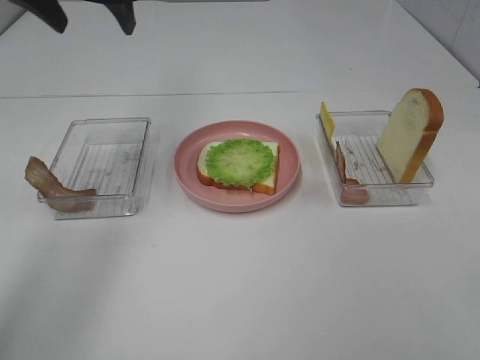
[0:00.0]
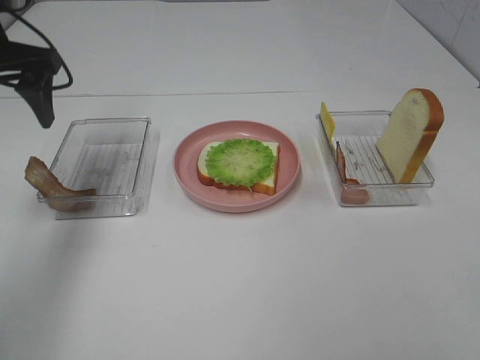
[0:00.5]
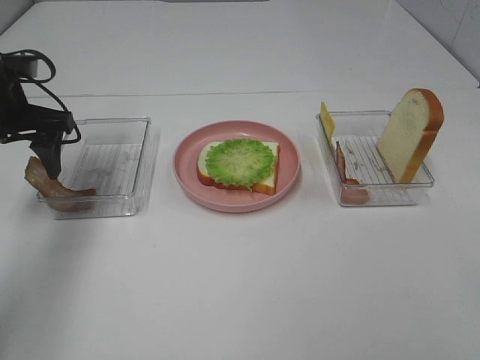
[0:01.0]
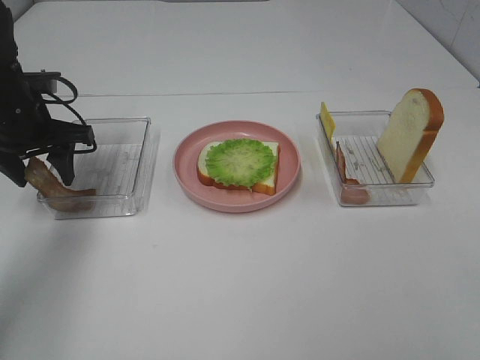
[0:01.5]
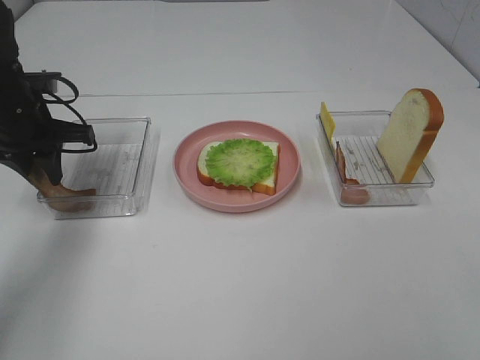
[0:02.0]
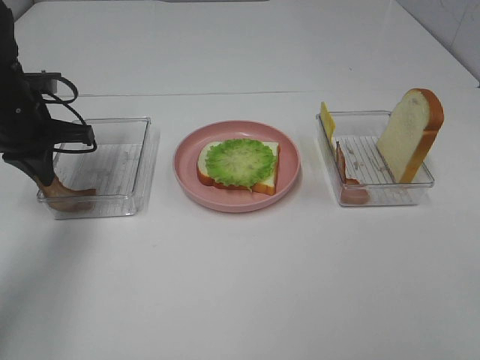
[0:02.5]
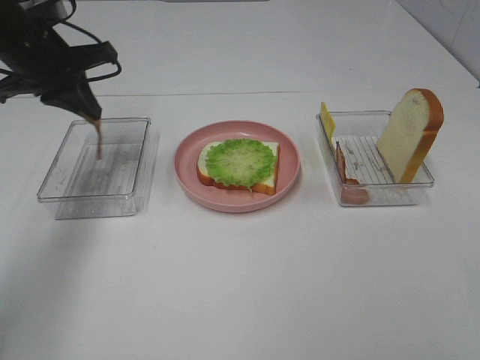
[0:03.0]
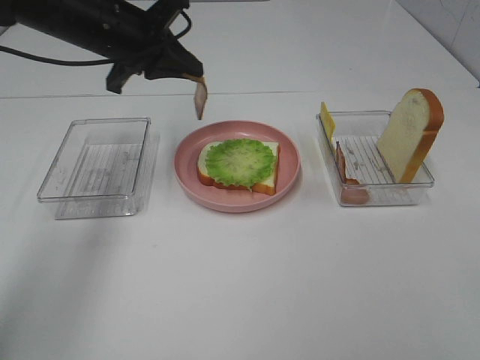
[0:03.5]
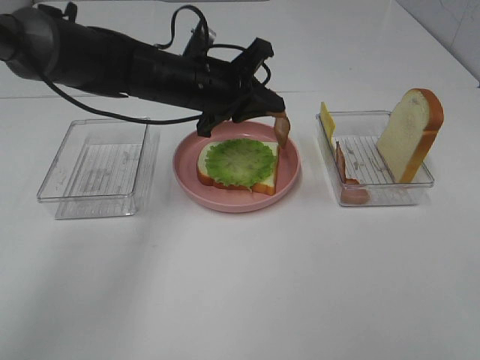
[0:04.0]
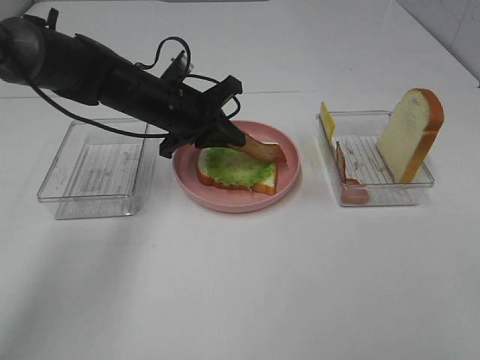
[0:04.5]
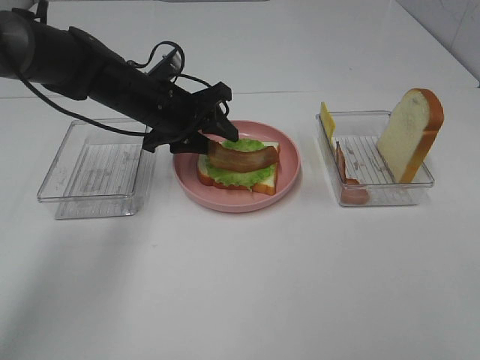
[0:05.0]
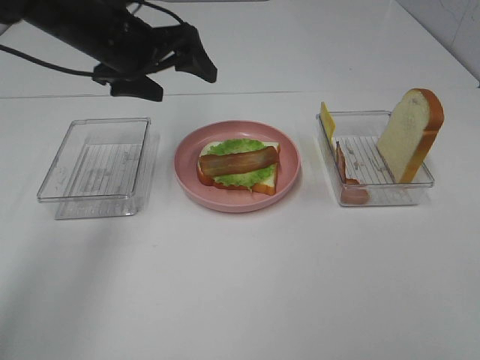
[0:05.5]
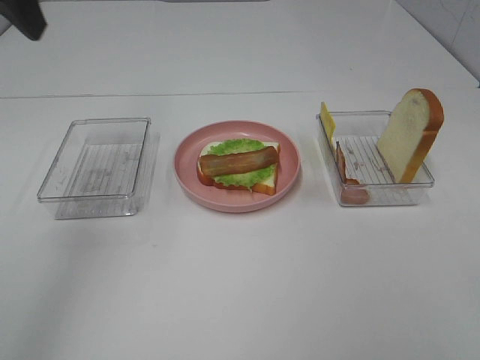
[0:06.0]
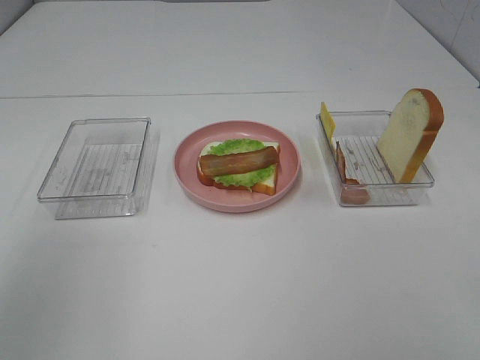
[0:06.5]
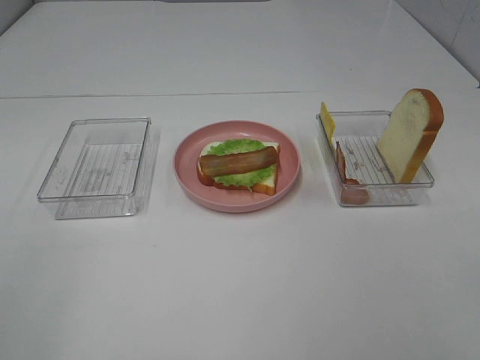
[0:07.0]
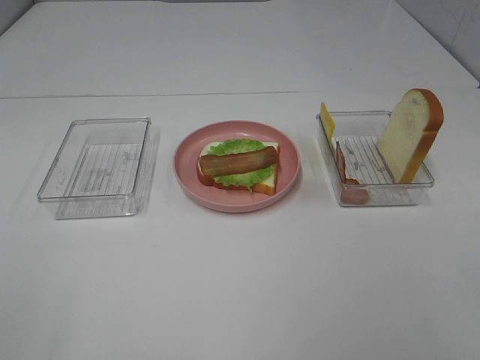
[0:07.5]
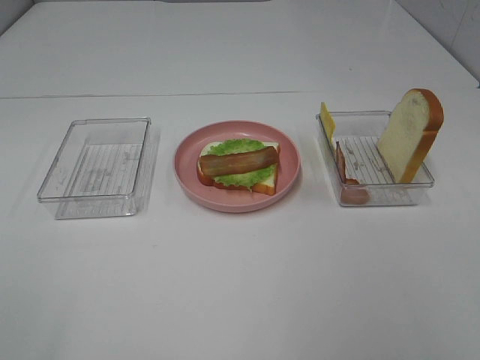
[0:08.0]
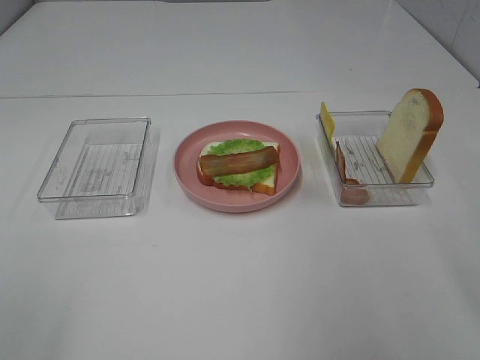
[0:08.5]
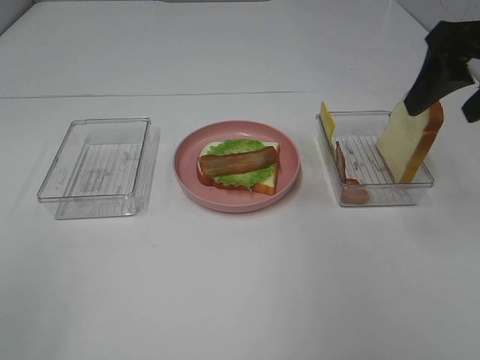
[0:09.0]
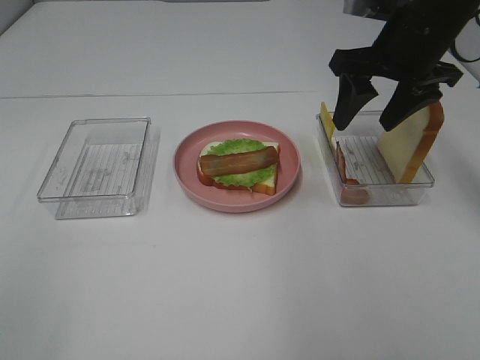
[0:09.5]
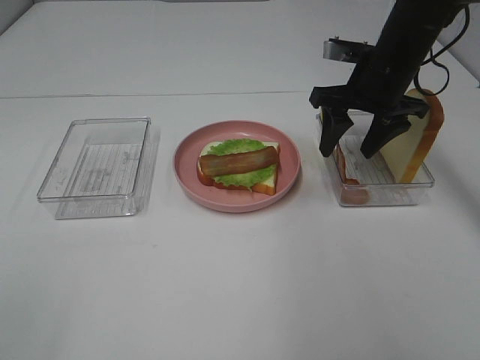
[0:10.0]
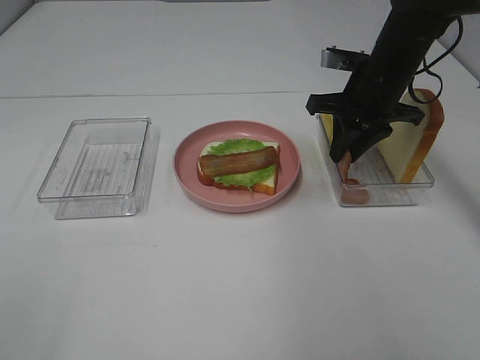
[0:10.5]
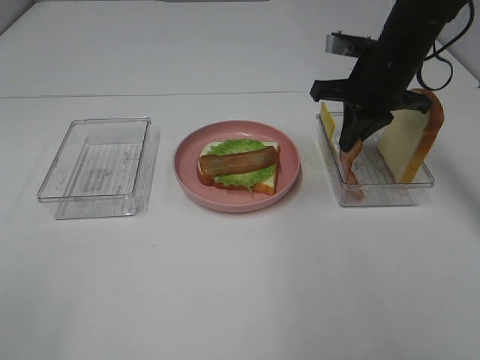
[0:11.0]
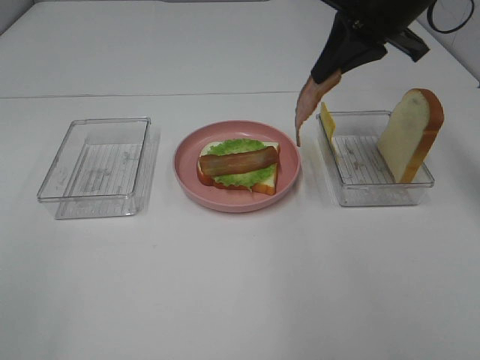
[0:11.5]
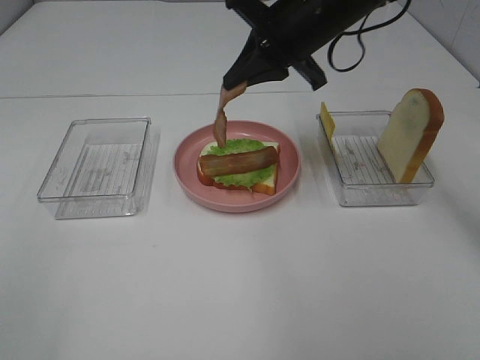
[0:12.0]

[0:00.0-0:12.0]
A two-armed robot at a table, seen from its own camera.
Task of the whole recording: Make sandwiches.
Step, 0:00.0 to 0:02.0: Left hand:grab the bacon.
Step, 0:02.5 to 0:05.0: Left hand:place bacon on lettuce slice.
Step, 0:05.5 to 0:10.5: Right hand:grab the bacon.
0:00.0 to 0:02.0: The left gripper moves downward and to the left, some 20 cm, and closes up.
0:02.0 to 0:04.0: The left gripper is displaced to the right by roughly 20 cm.
0:04.0 to 0:06.0: The left gripper goes about 30 cm upward, to the left and backward, and opens its fingers.
0:06.0 to 0:08.0: The left gripper travels backward by approximately 30 cm.
0:08.0 to 0:10.0: The right gripper moves forward, roughly 40 cm.
0:10.0 to 0:12.0: The right gripper is displaced to the left and upward by roughly 10 cm, and closes.

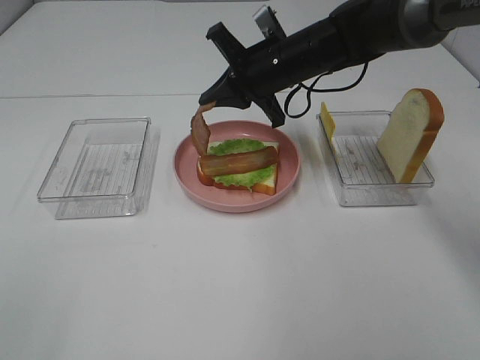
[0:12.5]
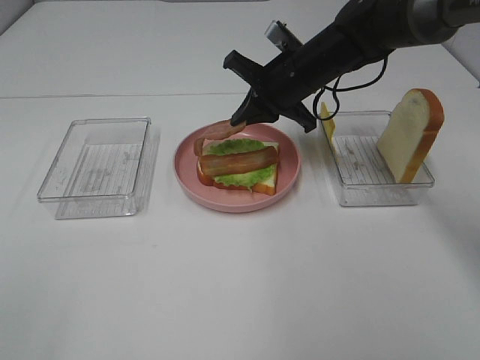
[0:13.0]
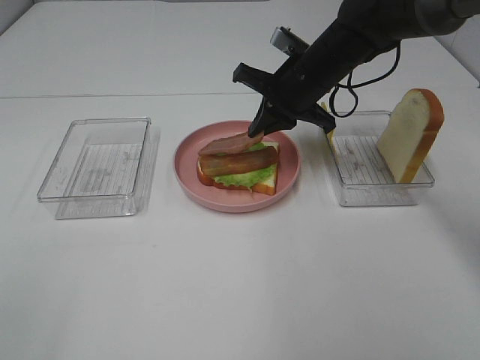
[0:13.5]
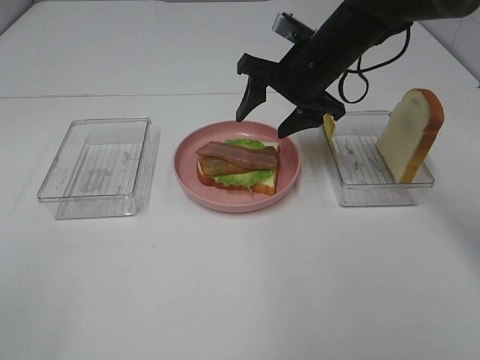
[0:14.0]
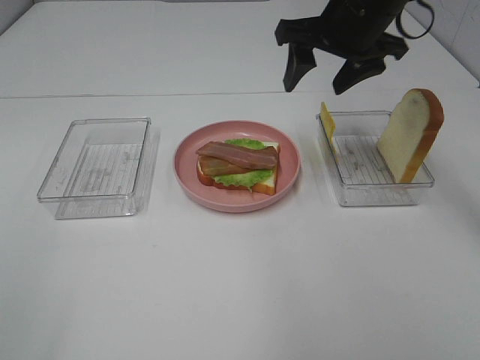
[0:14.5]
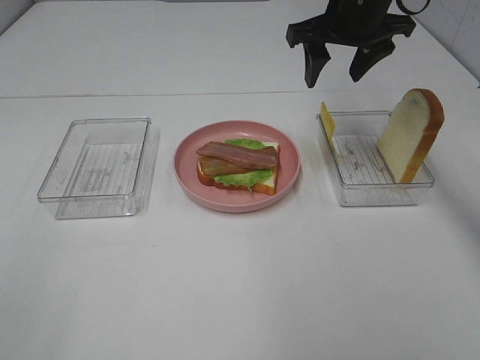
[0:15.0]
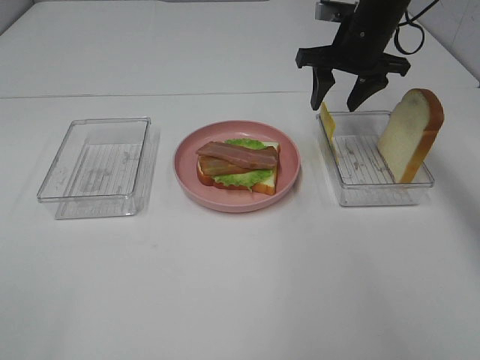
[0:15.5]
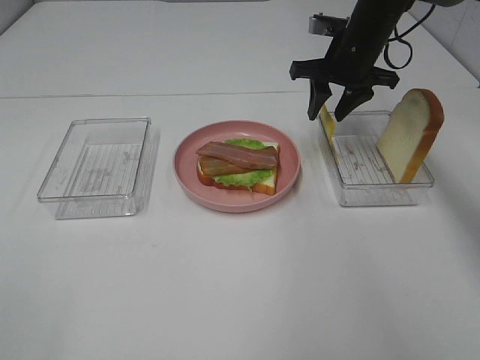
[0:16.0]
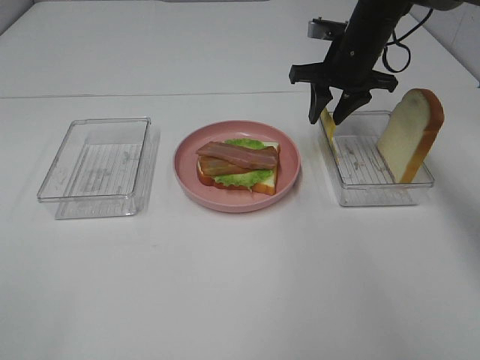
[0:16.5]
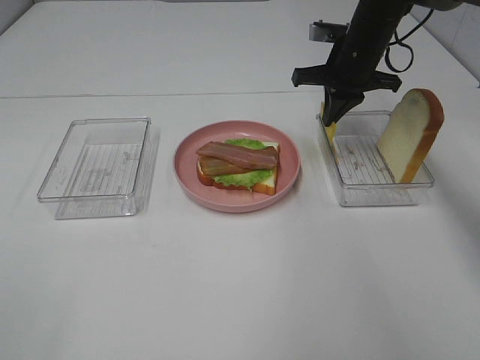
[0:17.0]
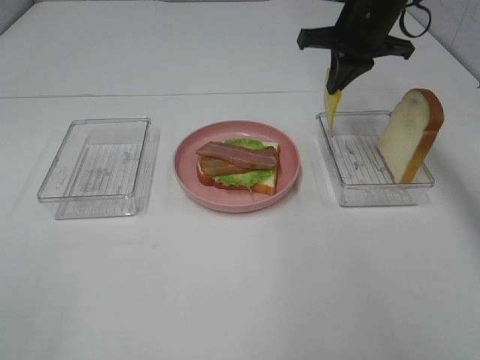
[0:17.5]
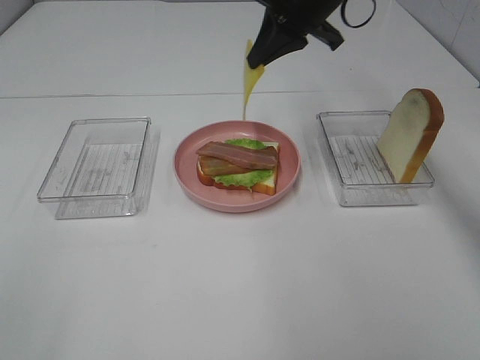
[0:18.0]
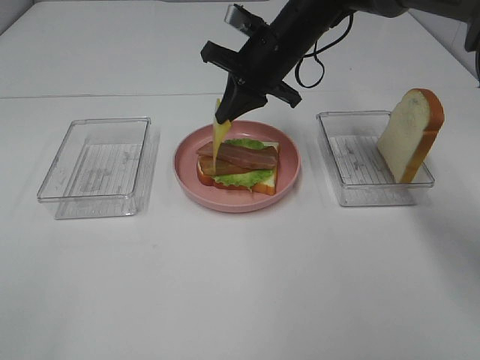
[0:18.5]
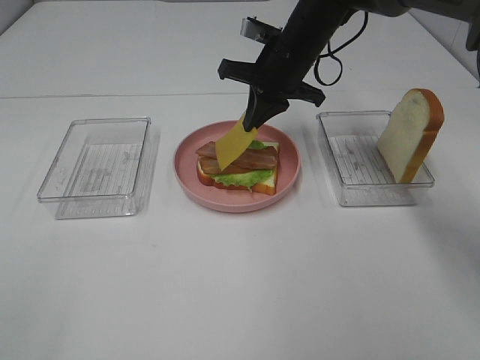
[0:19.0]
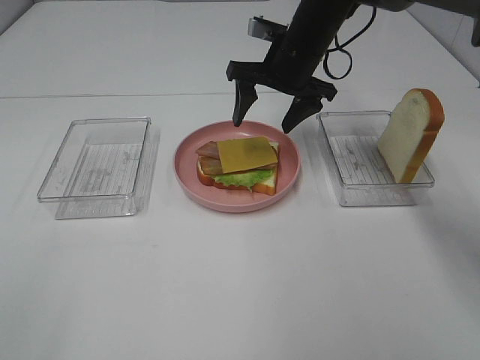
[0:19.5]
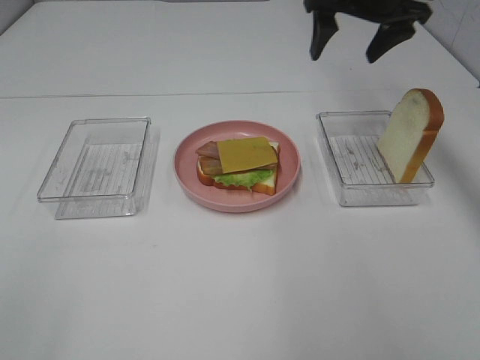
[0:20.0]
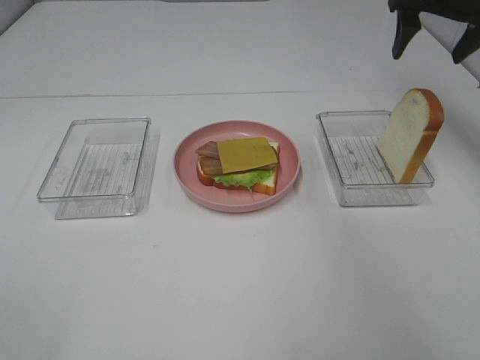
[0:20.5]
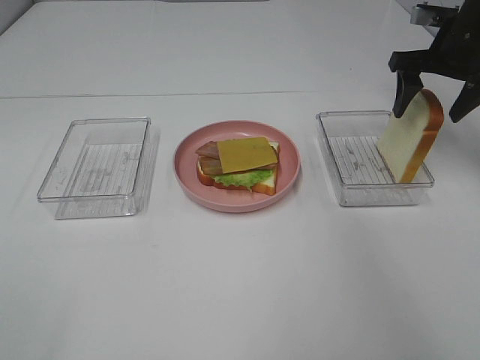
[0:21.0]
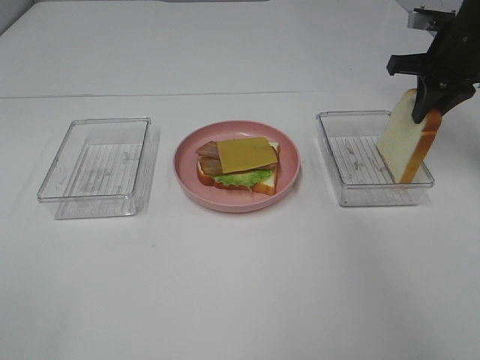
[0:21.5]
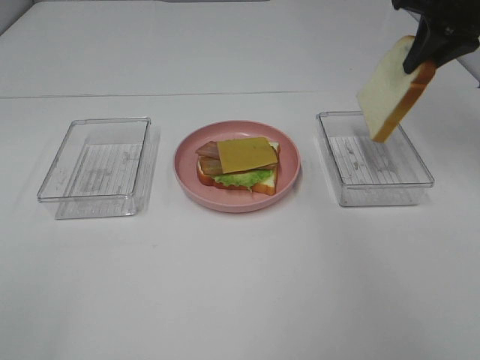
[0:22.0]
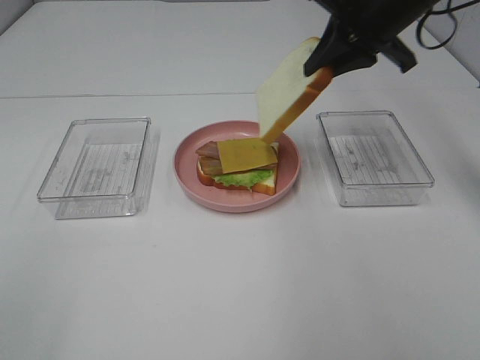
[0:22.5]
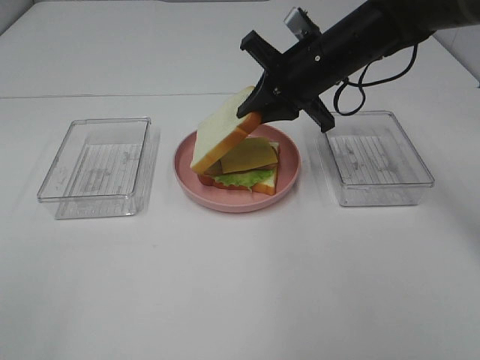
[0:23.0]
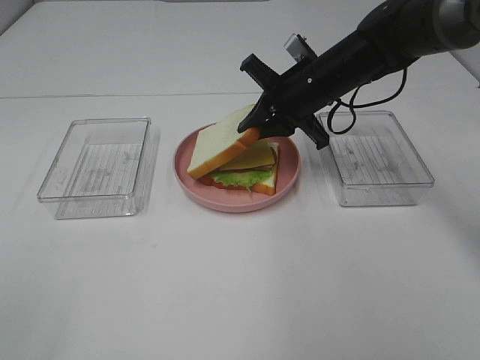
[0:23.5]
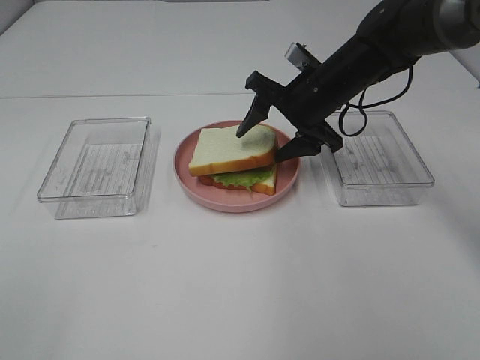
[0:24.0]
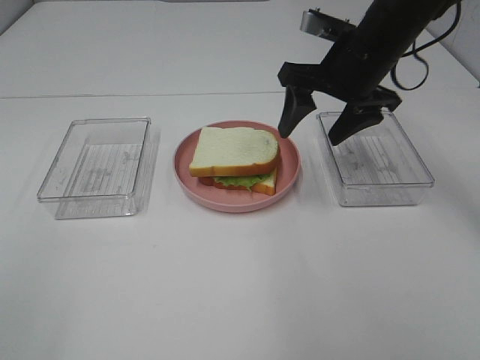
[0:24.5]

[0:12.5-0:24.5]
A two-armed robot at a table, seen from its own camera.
Task of the whole recording: Make sandwiches.
Step, 0:14.0 to 0:17.0: Right hand:grab the cheese slice.
Step, 0:17.5 to 0:19.5: Right hand:place the cheese slice on top of the bacon.
Step, 0:20.0 to 0:21.5: Right hand:grab the bread slice.
Step, 0:22.0 to 0:24.0: Right hand:place the bread slice on the cheese slice.
0:12.5 to 0:14.5: The right gripper heads upward and to the right, covering some 10 cm, and opens up.
0:14.5 to 0:16.5: The right gripper goes some 15 cm downward and forward.
0:16.5 to 0:18.5: The right gripper goes roughly 10 cm to the left, and closes up.
0:18.5 to 0:20.5: The right gripper travels to the right by approximately 20 cm, and opens.
0:20.5 to 0:22.5: The right gripper moves to the left and backward, about 15 cm, and closes.
0:22.5 to 0:24.5: The right gripper opens up.

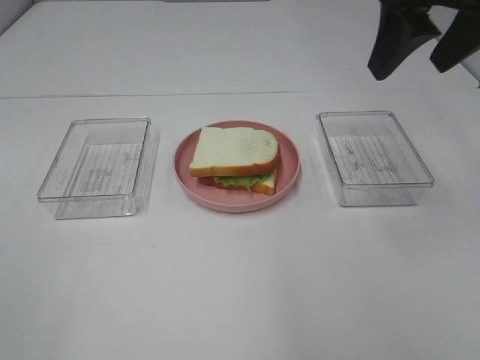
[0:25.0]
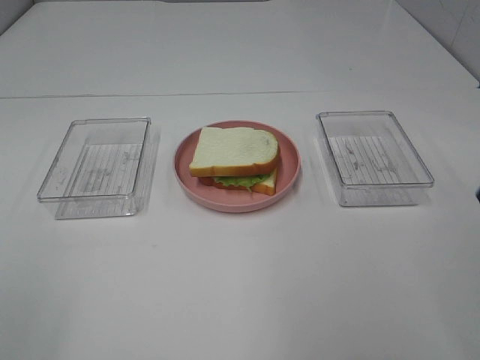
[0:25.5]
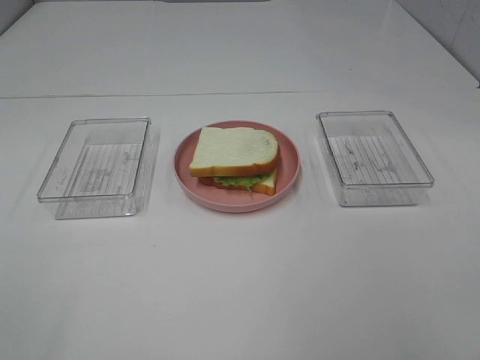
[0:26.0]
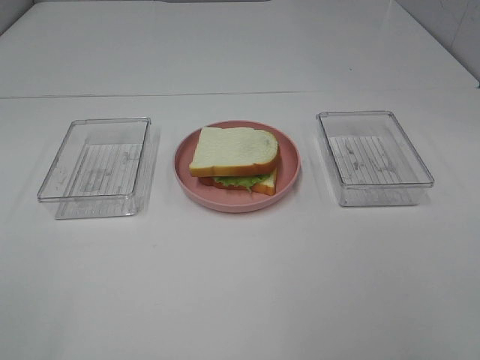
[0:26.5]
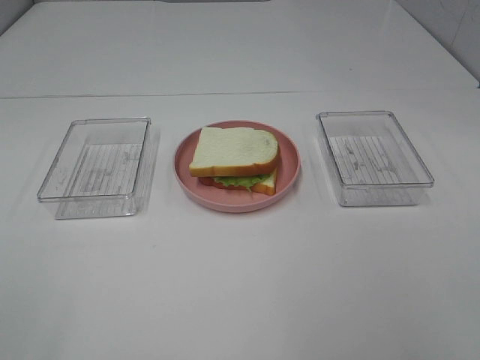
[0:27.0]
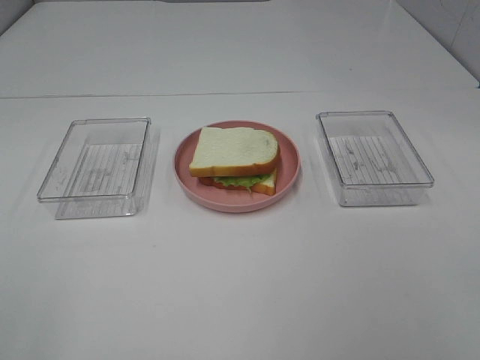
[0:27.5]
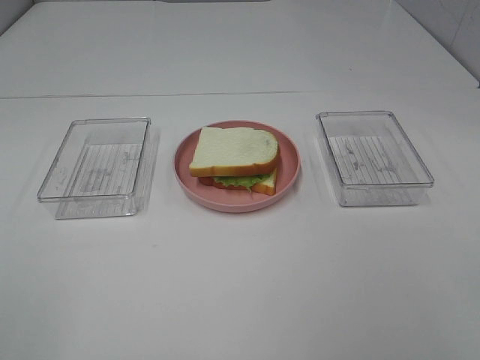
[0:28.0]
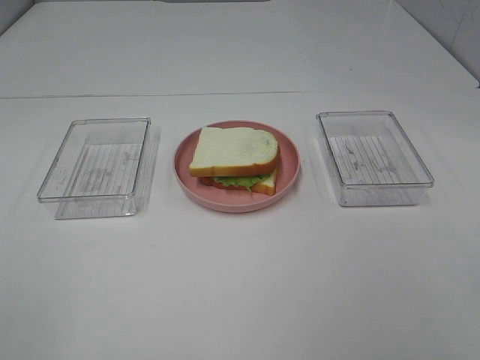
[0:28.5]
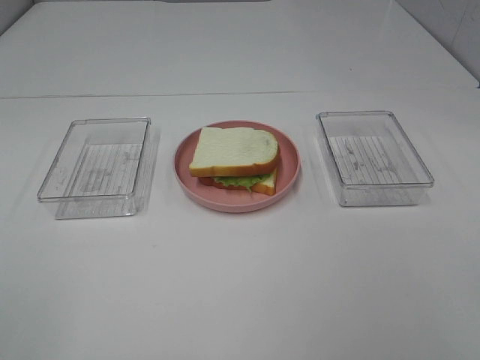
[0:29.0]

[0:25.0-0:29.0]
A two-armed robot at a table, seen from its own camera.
Task of the whole recording: Make sandwiches.
0:25.0 to 0:27.0: The right gripper is displaced backward by about 30 cm.
